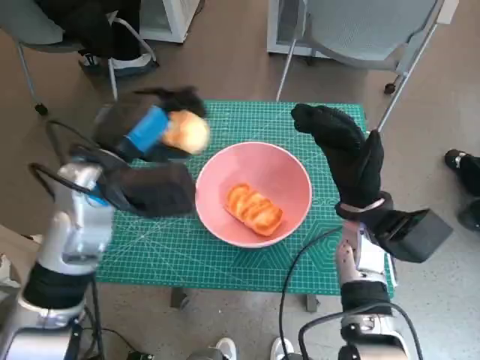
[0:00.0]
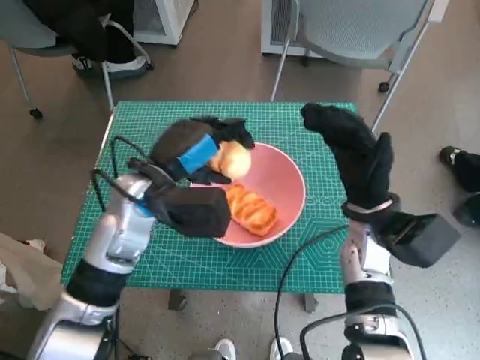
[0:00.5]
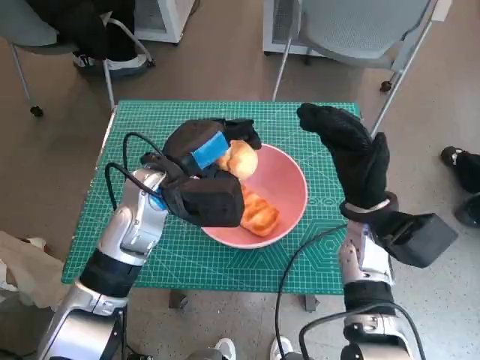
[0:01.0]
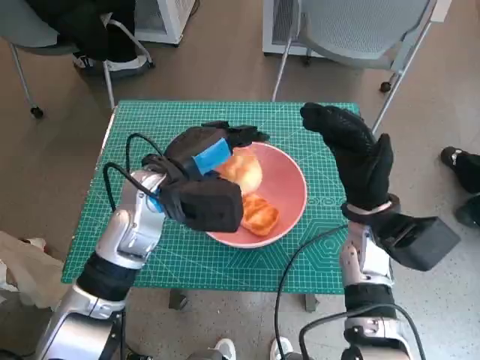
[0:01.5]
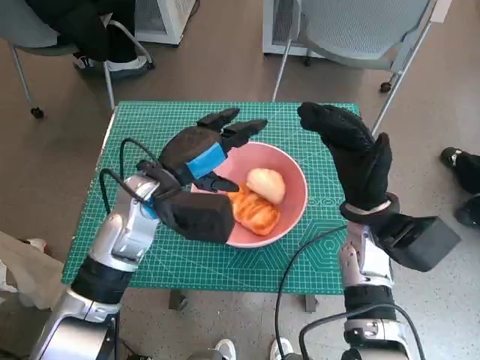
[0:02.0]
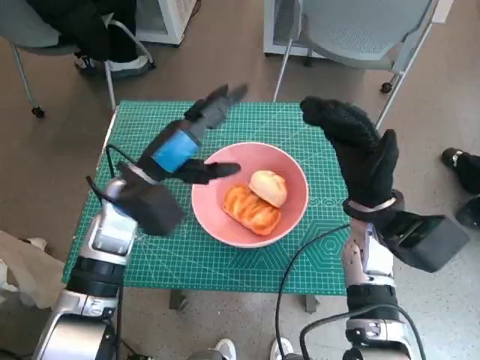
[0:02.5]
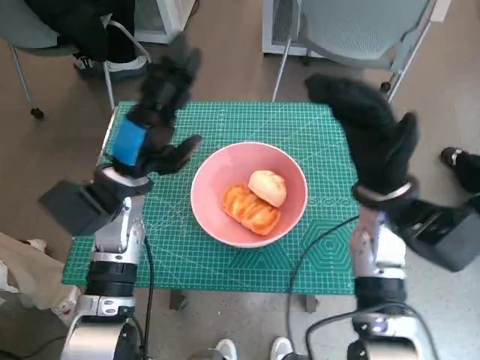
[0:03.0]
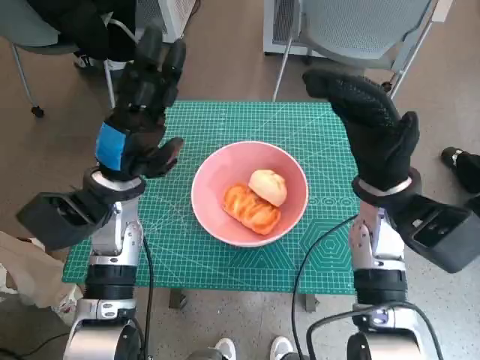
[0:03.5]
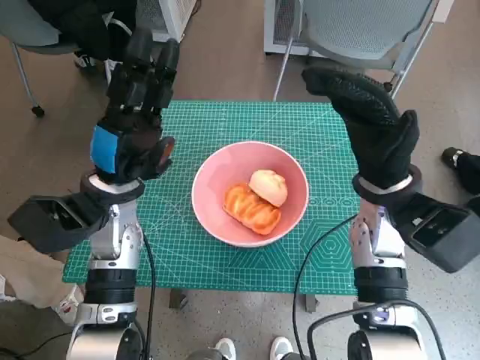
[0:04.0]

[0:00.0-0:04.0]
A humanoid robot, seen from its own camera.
Step, 0:00.0 to 0:02.0: Place the round bread in pink bowl with left hand.
0:00.0 to 0:02.0: The left hand changes place by approximately 5 cm.
0:02.0 to 0:04.0: The right hand shifts approximately 5 cm upward. Meanwhile the left hand is displaced to the left by approximately 5 cm.

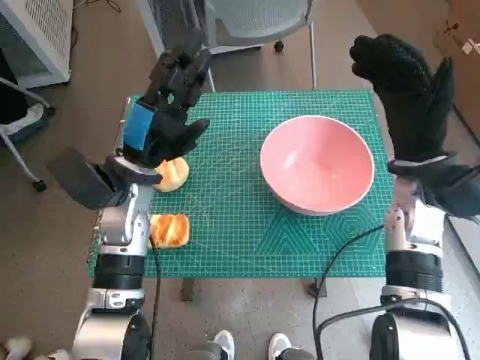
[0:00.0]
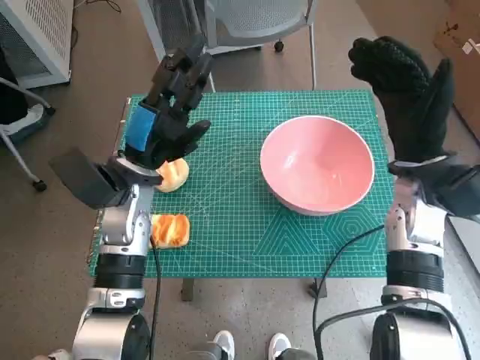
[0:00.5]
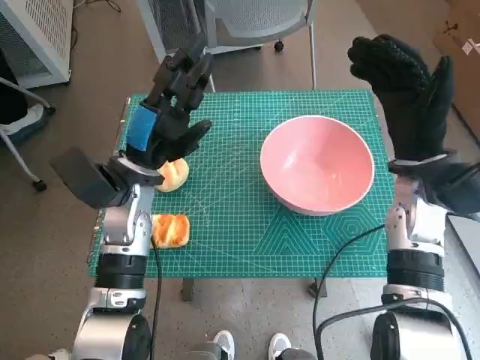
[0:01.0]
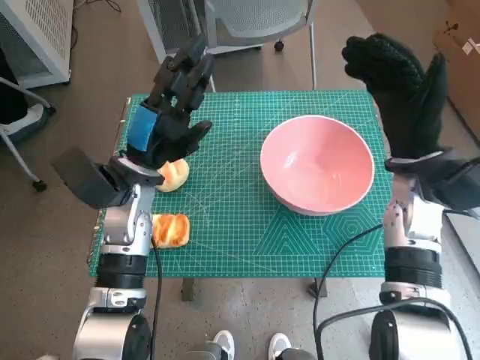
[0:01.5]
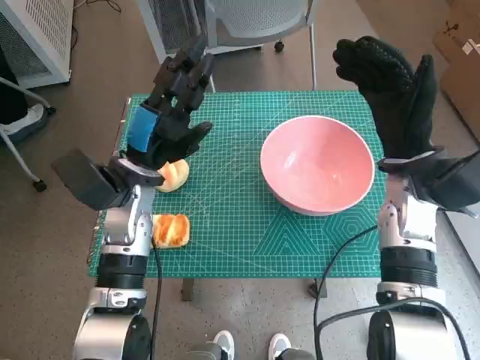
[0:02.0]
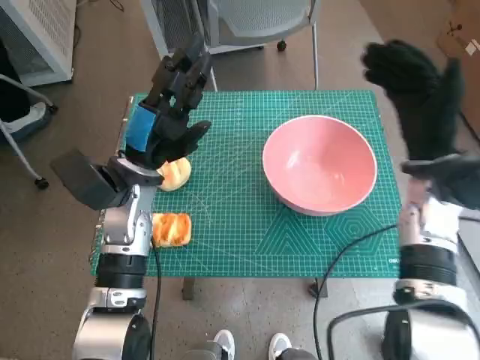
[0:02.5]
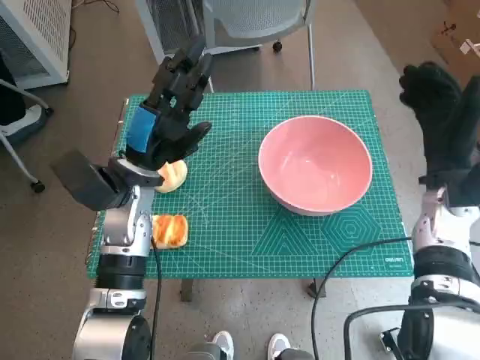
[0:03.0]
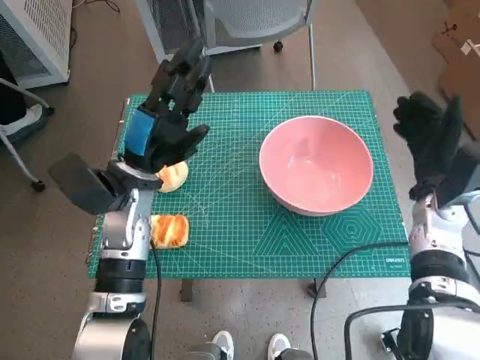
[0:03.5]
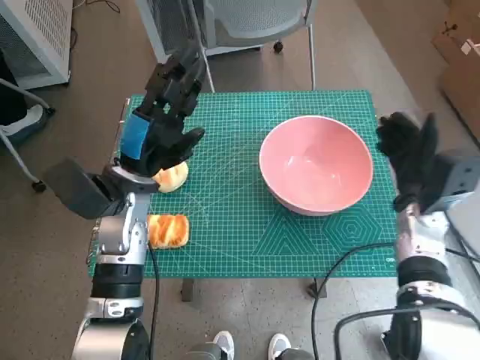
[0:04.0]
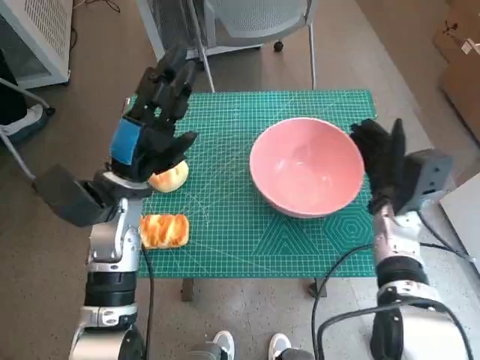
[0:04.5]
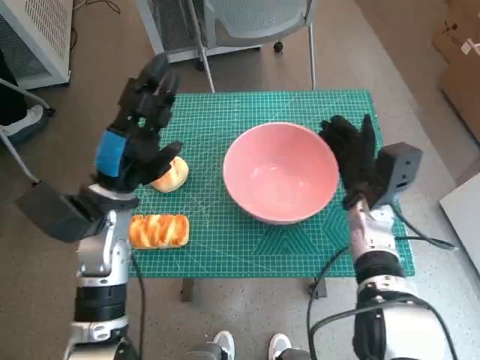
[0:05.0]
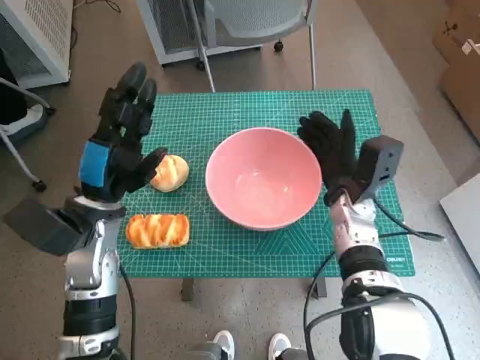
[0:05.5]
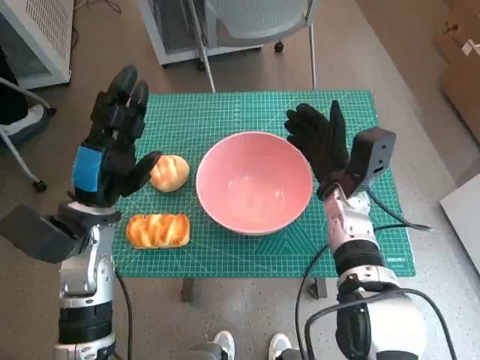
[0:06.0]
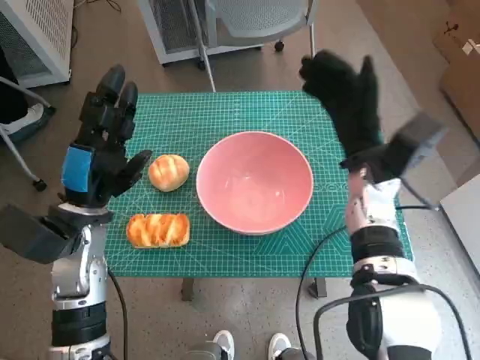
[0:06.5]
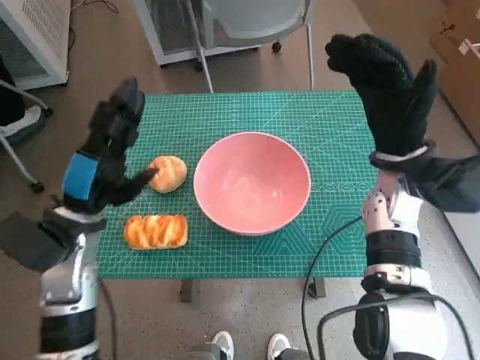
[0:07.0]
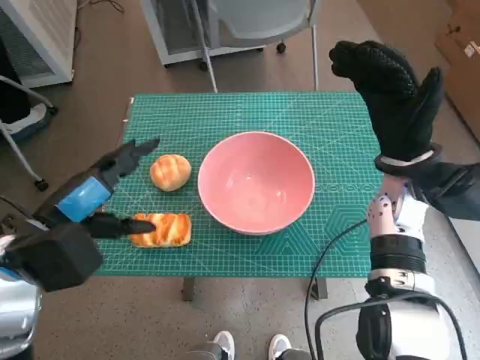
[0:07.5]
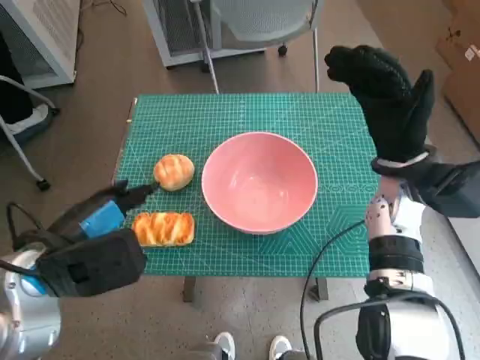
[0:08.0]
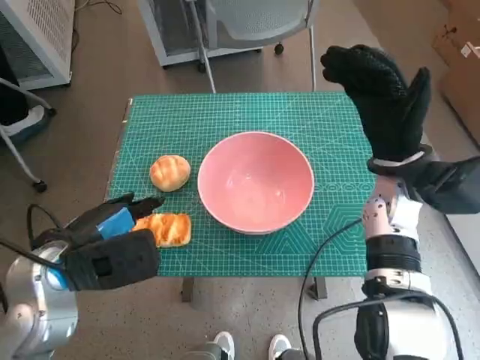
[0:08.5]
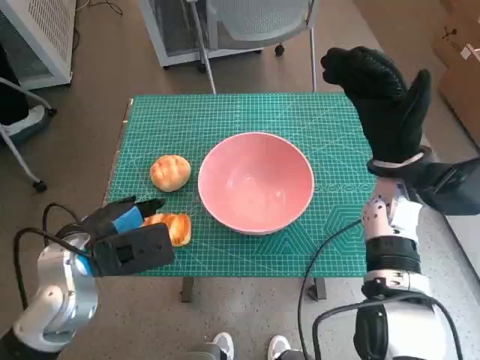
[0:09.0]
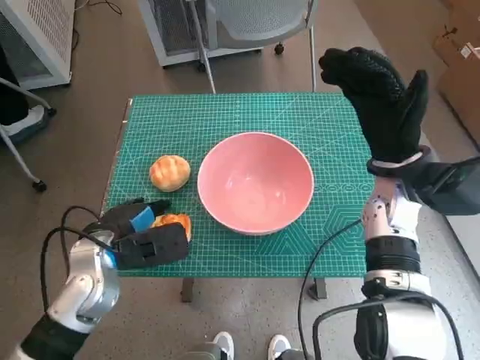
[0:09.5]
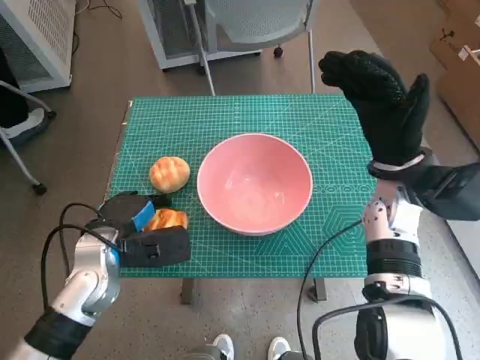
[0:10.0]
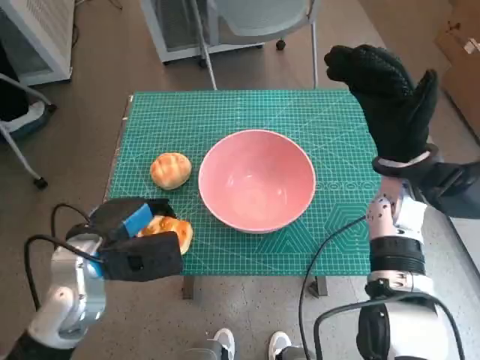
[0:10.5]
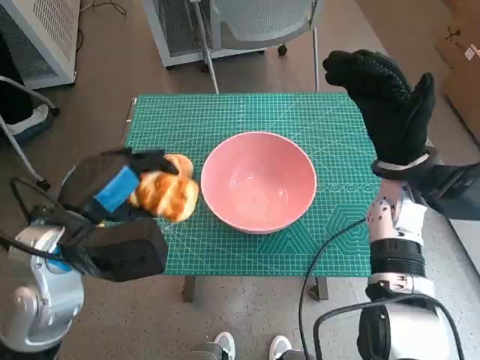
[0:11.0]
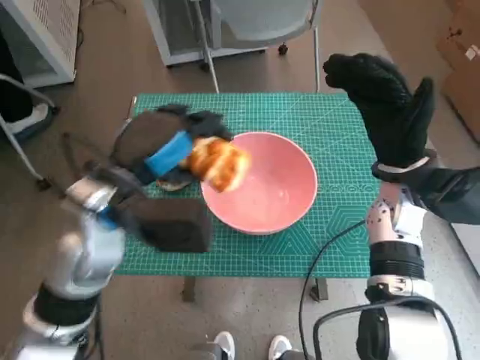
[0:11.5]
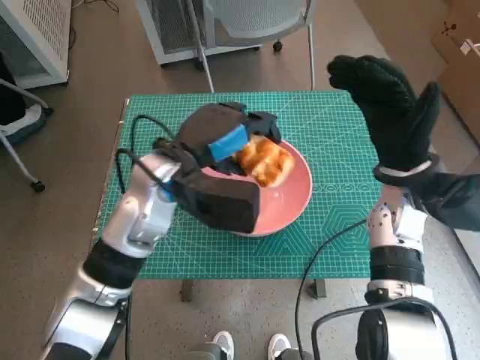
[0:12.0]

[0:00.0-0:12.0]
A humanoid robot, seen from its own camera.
Step, 0:00.0 to 0:06.0: Move the pink bowl to the center of table with right hand.
Step, 0:06.5 to 0:09.5: Grasp the long bread with left hand.
0:02.0 to 0:04.0: The right hand shifts roughly 10 cm downward.
0:04.0 to 0:06.0: The right hand travels to the left by about 10 cm. Meanwhile the left hand shifts by approximately 5 cm.
0:06.0 to 0:08.0: The right hand shifts roughly 10 cm upward and to the right; the left hand is displaced backward by roughly 5 cm.
0:08.0 to 0:10.0: The left hand travels downward and forward by about 10 cm.
0:10.0 to 0:12.0: The left hand goes roughly 15 cm upward, to the right and forward.

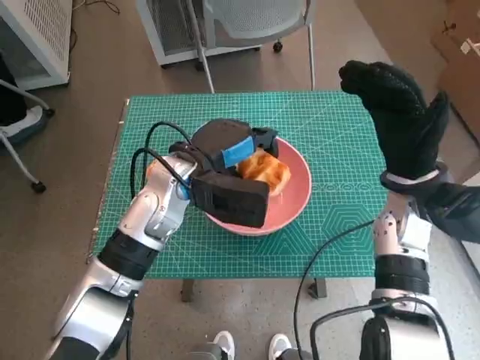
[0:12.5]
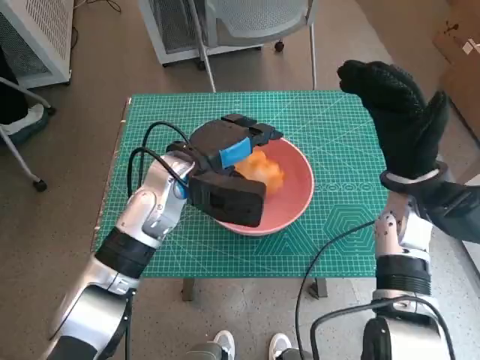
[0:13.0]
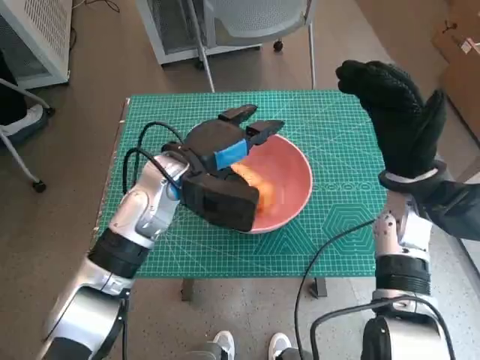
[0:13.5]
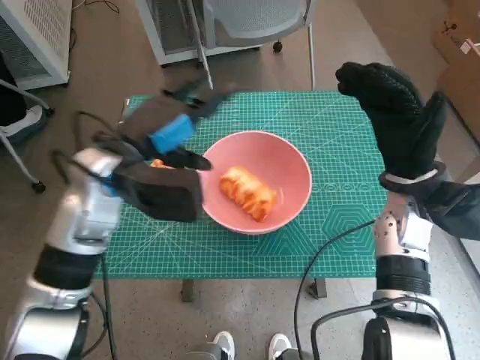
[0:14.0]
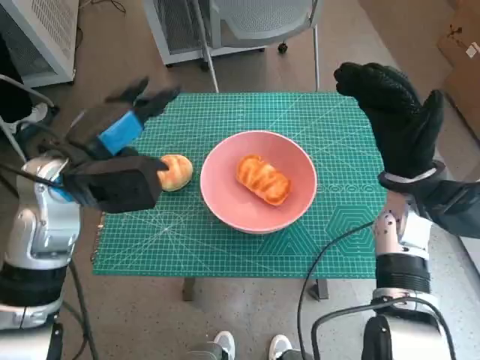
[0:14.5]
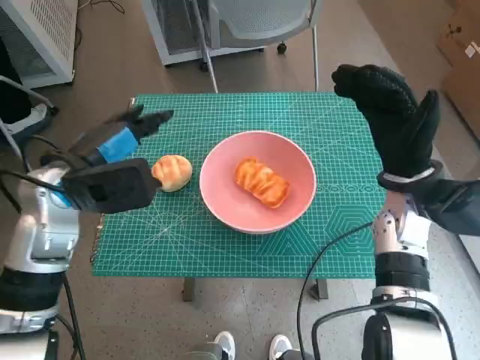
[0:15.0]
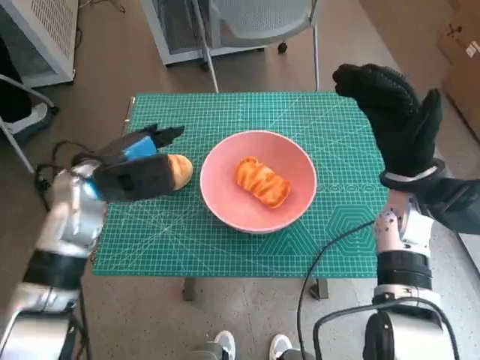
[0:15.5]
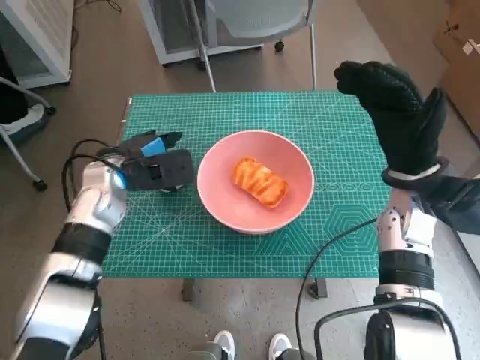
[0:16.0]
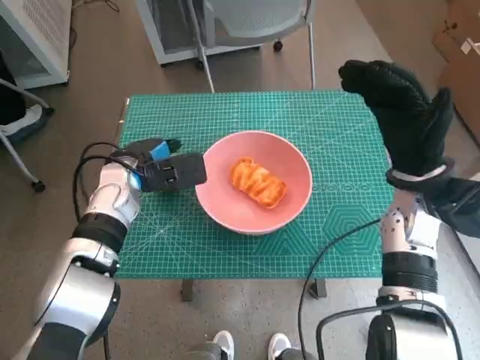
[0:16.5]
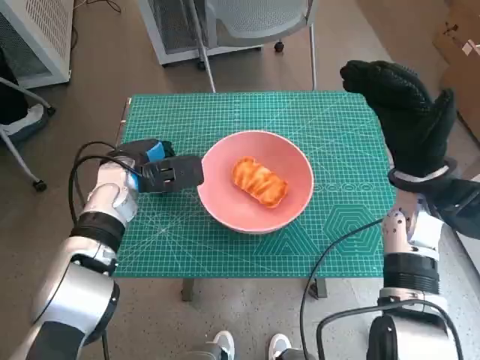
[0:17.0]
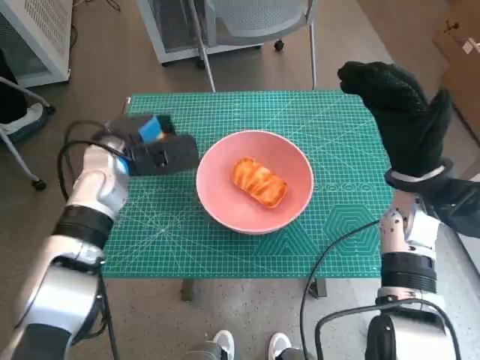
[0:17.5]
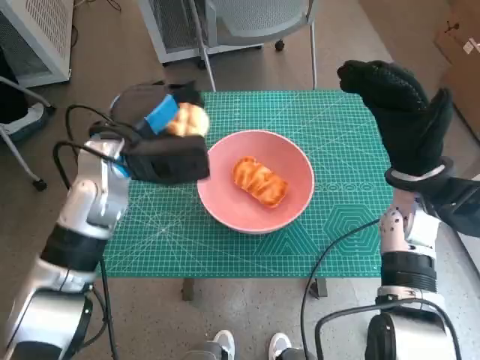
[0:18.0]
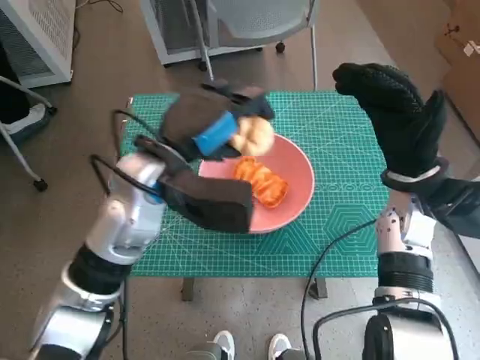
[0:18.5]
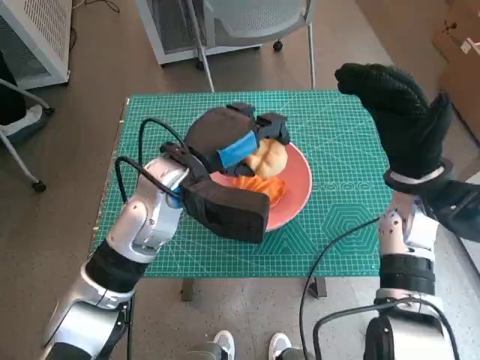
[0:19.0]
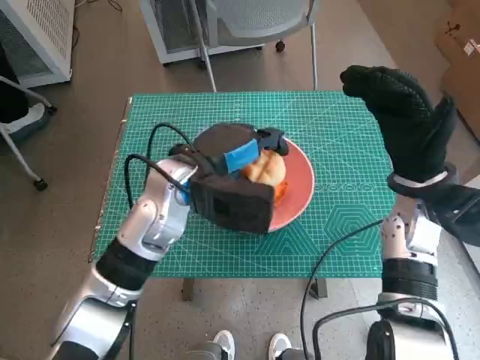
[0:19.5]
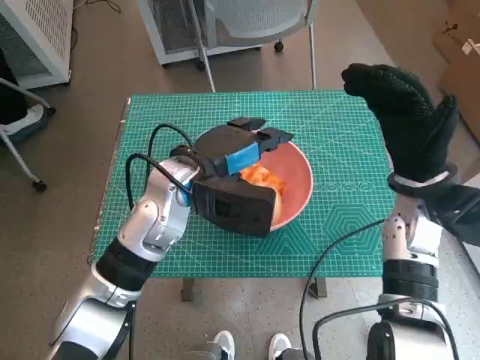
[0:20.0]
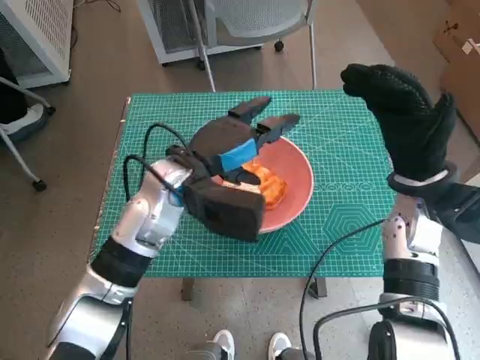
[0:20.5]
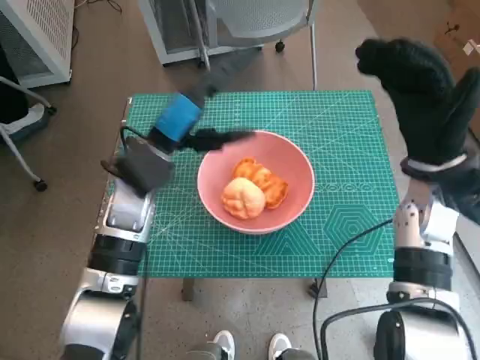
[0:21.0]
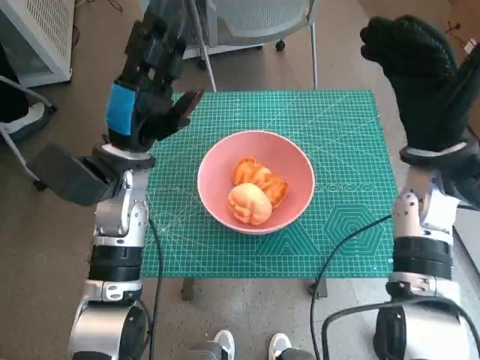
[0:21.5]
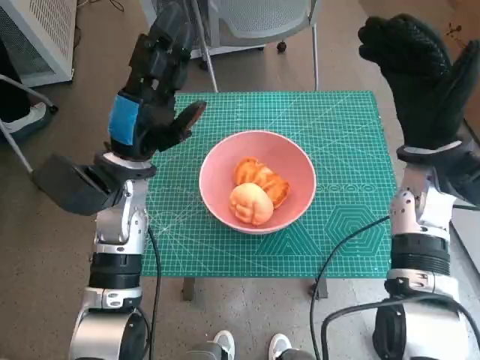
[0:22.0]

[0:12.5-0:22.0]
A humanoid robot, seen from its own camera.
Step, 0:14.0 to 0:16.5: Grasp the round bread with left hand.
Step, 0:17.0 to 0:20.0: Place the round bread in pink bowl with left hand.
0:12.5 to 0:14.5: The left hand shifts roughly 10 cm to the left.
0:14.5 to 0:16.5: The left hand shifts some 10 cm downward and forward.
0:16.5 to 0:18.0: The left hand heads upward, covering roughly 10 cm.
0:18.0 to 0:20.0: The left hand is displaced to the right by approximately 10 cm.
0:20.0 to 0:22.0: The left hand travels to the left by about 10 cm.
